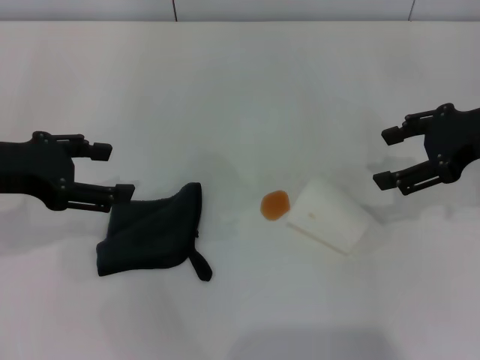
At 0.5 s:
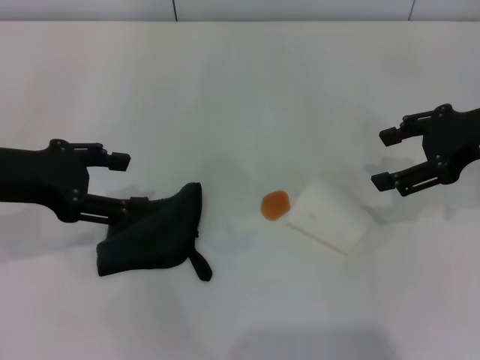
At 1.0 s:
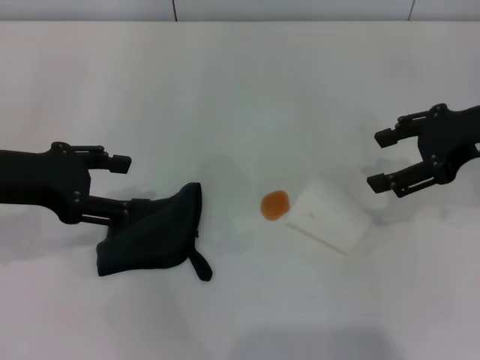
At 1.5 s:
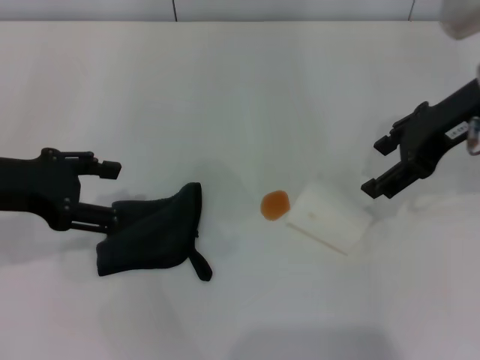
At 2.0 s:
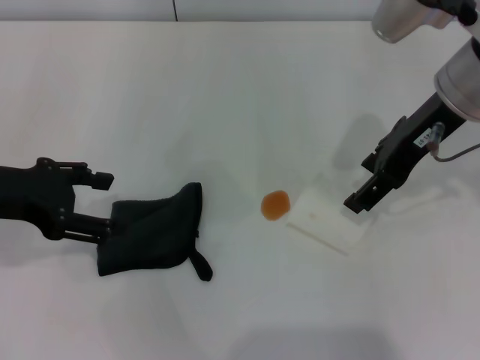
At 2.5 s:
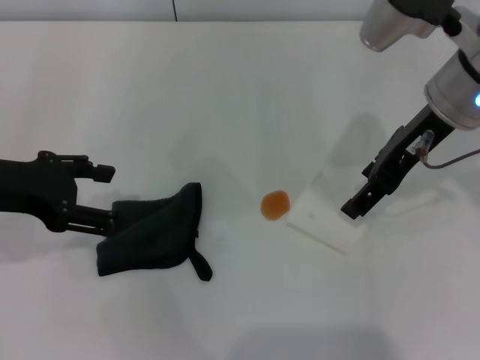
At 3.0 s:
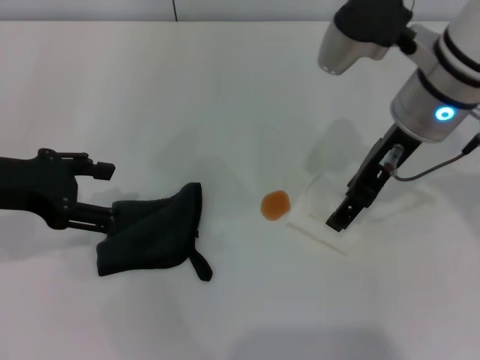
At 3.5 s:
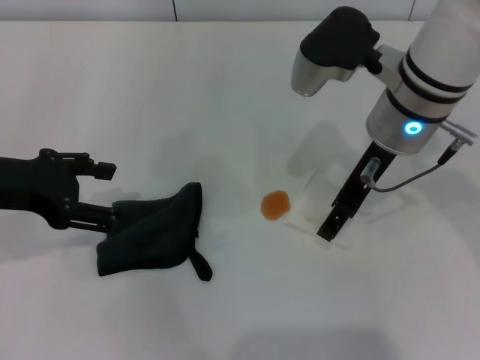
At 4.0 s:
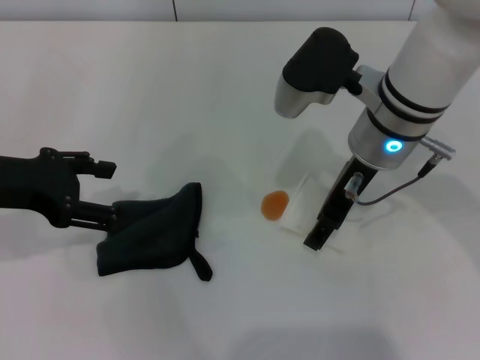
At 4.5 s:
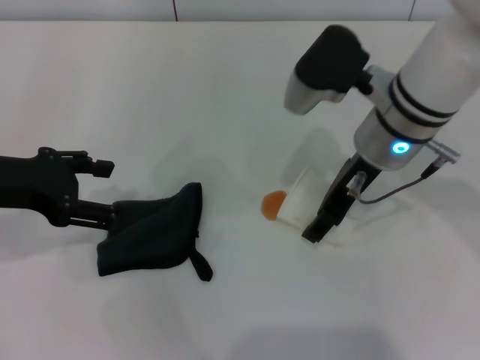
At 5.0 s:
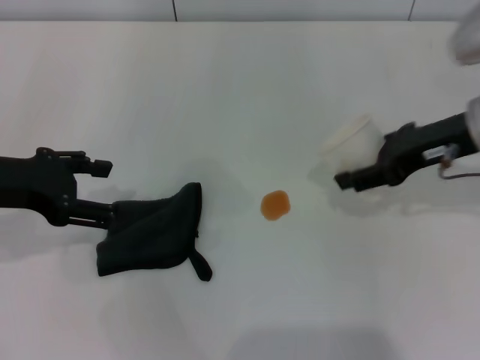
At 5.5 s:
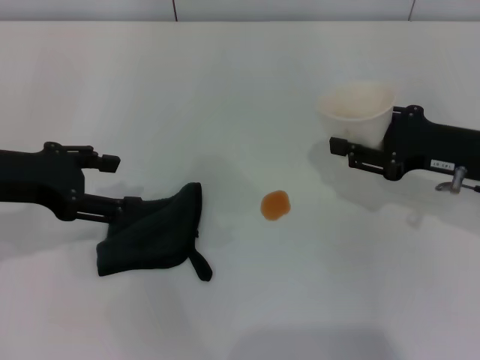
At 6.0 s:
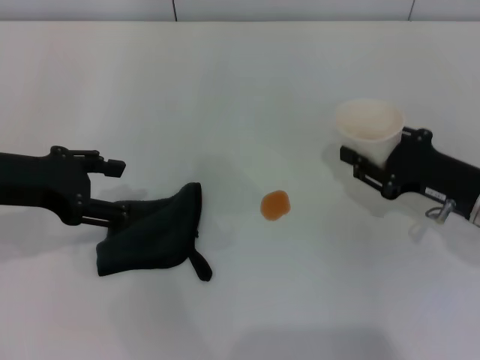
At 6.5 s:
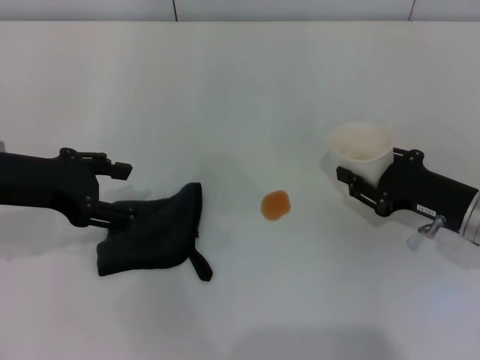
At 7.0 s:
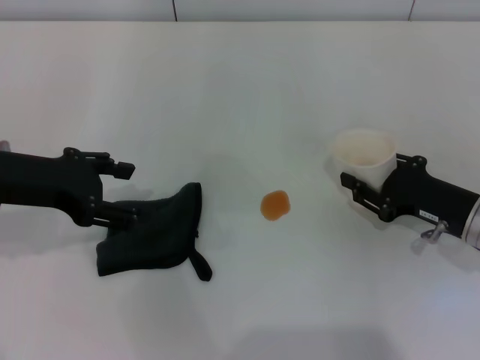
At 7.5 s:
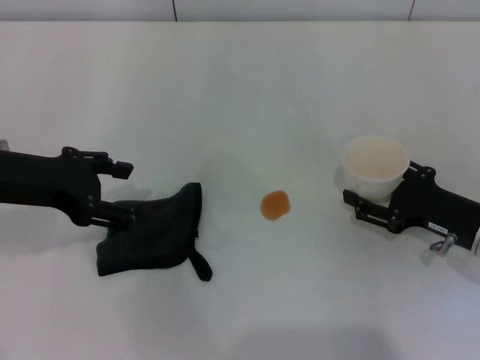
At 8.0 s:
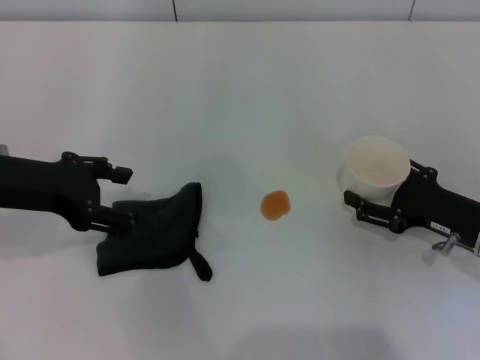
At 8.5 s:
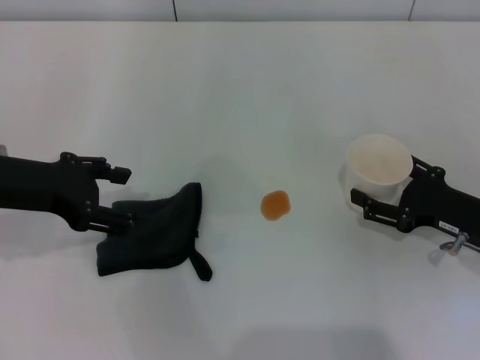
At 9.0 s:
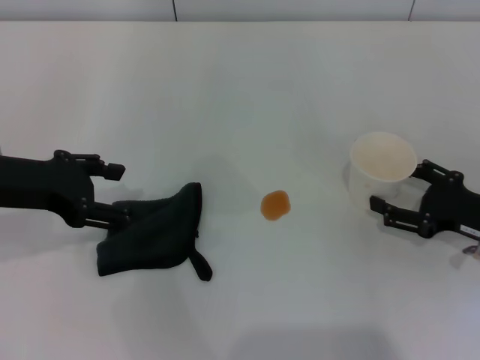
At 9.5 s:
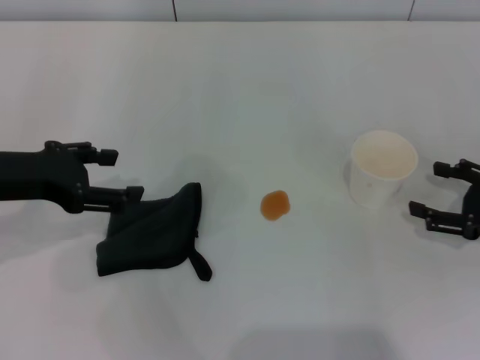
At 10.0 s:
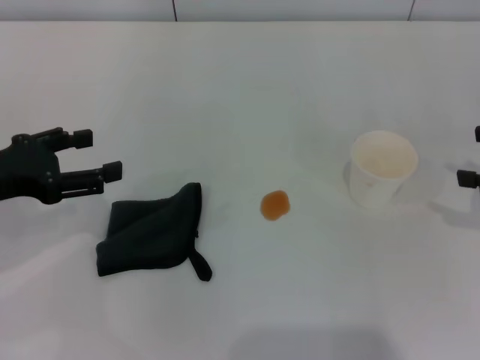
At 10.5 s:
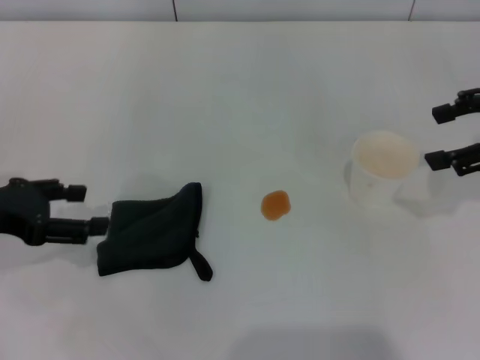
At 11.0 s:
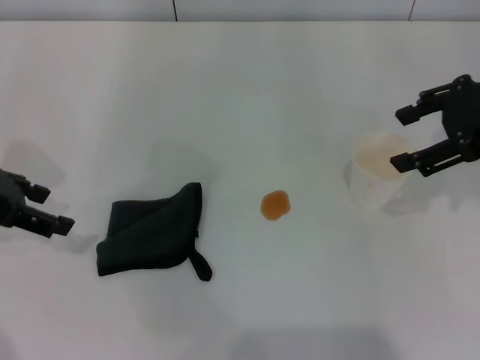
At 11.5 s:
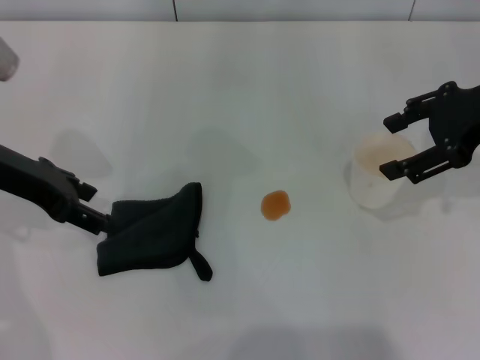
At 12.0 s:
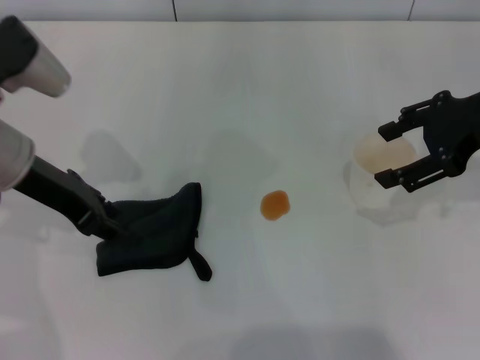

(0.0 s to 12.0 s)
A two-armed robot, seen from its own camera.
Step, 0.0 s - 4.0 s: Grasp the paper cup with the right gripper.
Step, 4.5 s - 9.0 s: Stand the paper cup upright with the right gripper.
0.0 s - 2.0 s: The right gripper goes roughly 10 cm to the left.
2.0 s - 4.0 s: The right gripper travels to the left and downward by some 10 cm.
4.0 s - 6.0 s: The right gripper moves to the right, downward and backward, some 20 cm, and closes its fingers.
6.0 s - 8.0 s: The right gripper opens its fingers.
8.0 s - 10.0 s: The right gripper is displaced upward and to the right by about 15 cm. Meanwhile the left gripper moves roughly 5 cm.
10.0 s - 12.0 s: The left gripper is displaced to the right and forward by about 10 cm, and closes up, while the right gripper travels to the left, upward and forward by roughly 15 cm.

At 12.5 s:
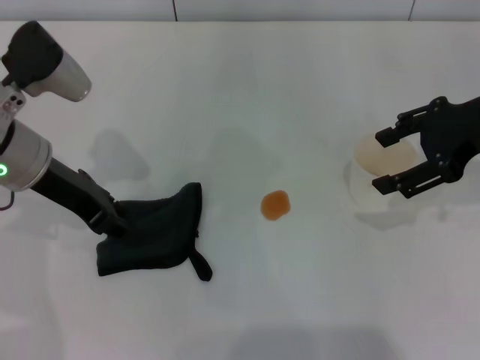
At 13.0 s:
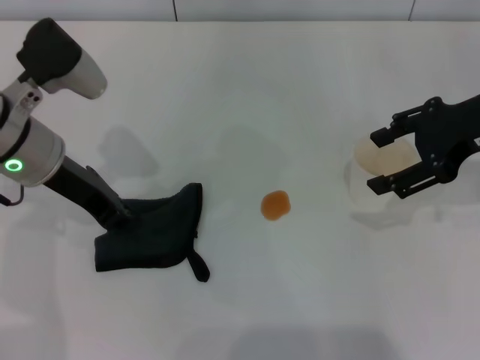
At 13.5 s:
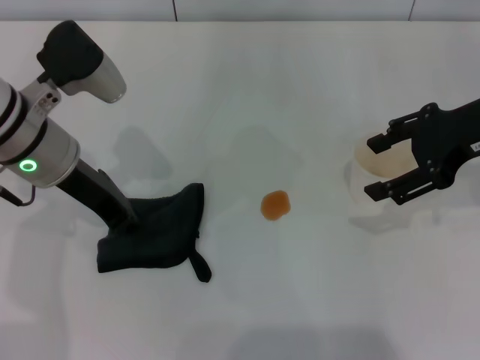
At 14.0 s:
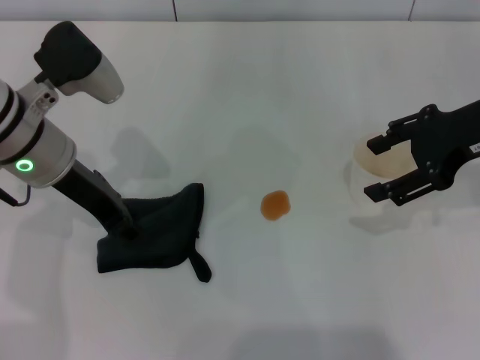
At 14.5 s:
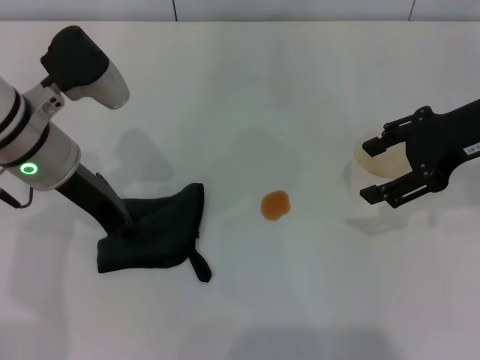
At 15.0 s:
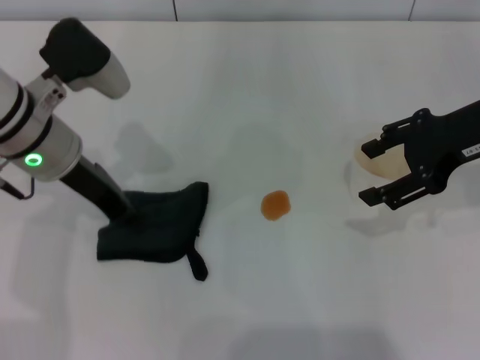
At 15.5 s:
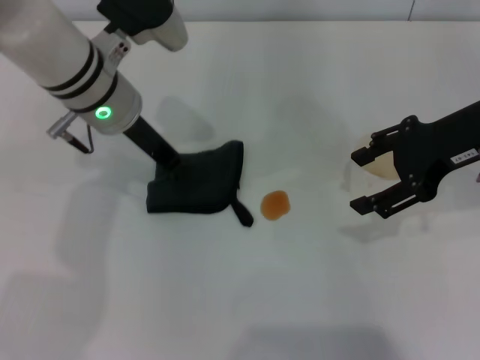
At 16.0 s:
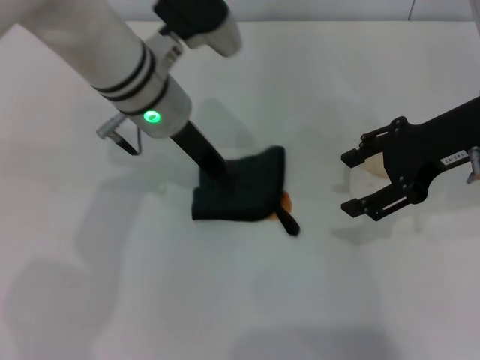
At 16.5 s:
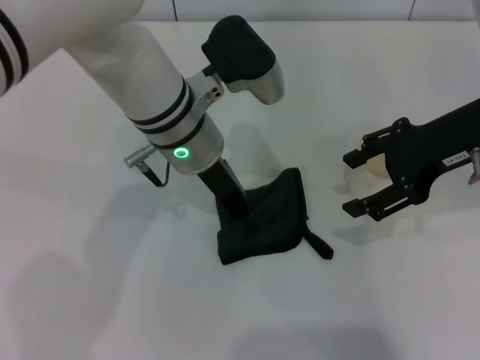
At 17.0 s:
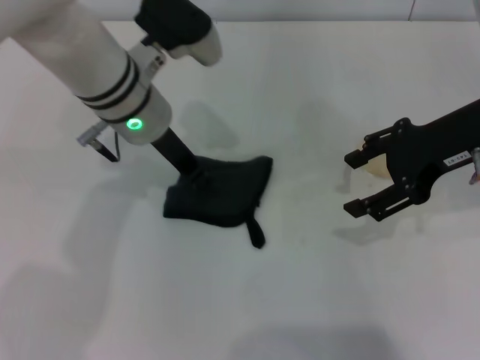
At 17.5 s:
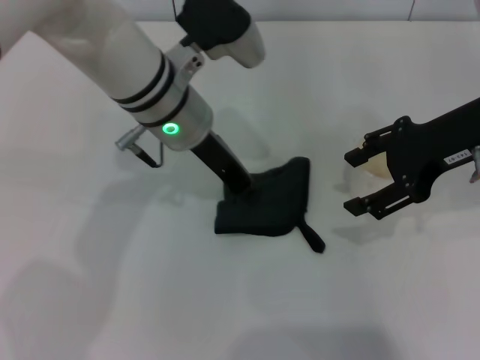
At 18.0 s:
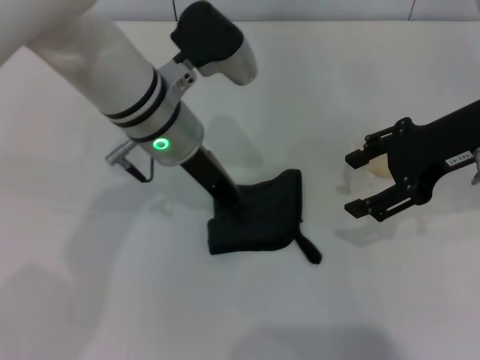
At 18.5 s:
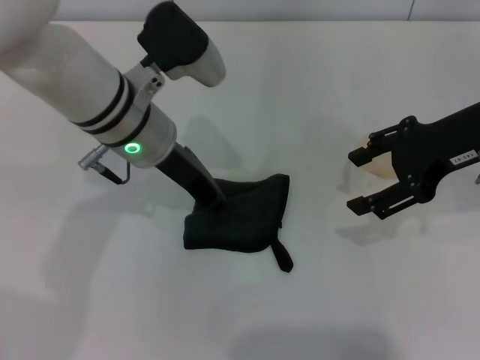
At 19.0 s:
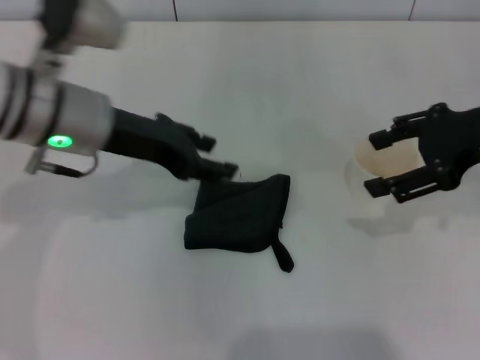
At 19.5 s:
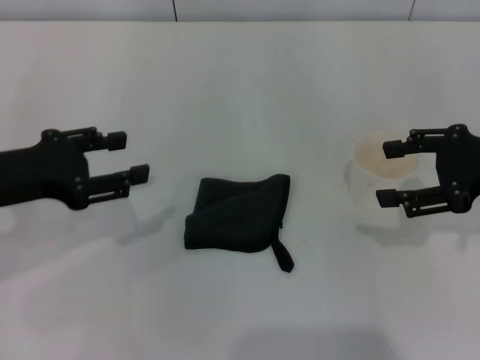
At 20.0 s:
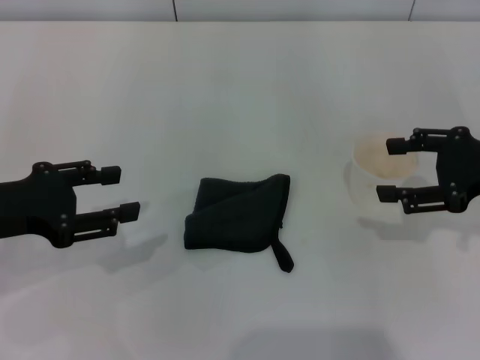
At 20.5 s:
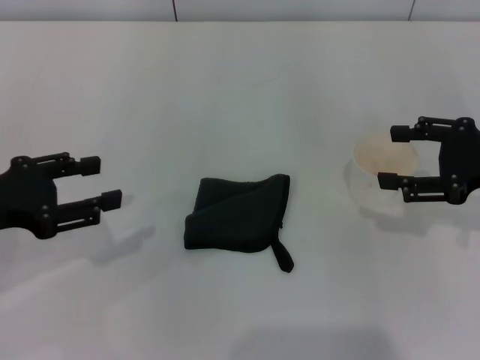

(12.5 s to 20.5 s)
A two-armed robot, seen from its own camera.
Step, 12.5 s - 15.0 s: Grasp the rag with the left gripper.
Step, 15.5 s - 18.0 s: Wipe the stains off the table with the left gripper.
Step, 18.5 s - 19.5 s: Place the rag on the table with the left gripper.
12.5 s - 14.5 s: The left gripper closes and opens again.
14.5 s - 16.5 s: The left gripper travels to the right by approximately 15 cm, and closes.
18.5 s - 20.5 s: The right gripper goes some 10 cm to the right and downward; the left gripper travels to the left and backward by approximately 25 cm, and opens.

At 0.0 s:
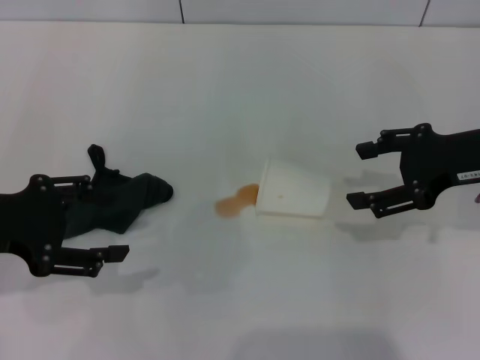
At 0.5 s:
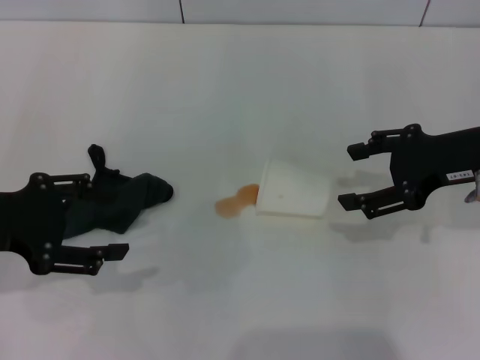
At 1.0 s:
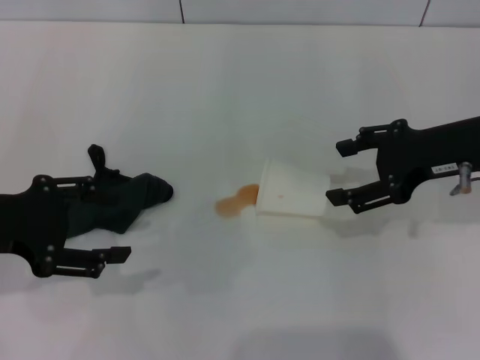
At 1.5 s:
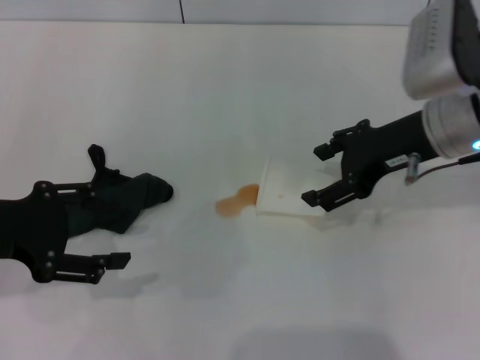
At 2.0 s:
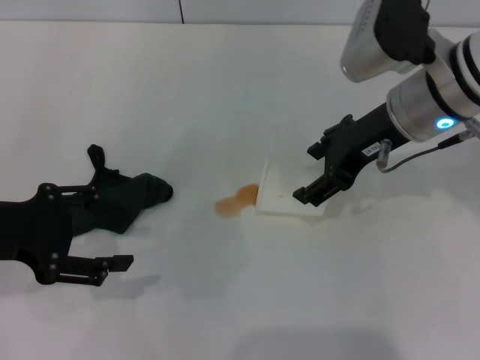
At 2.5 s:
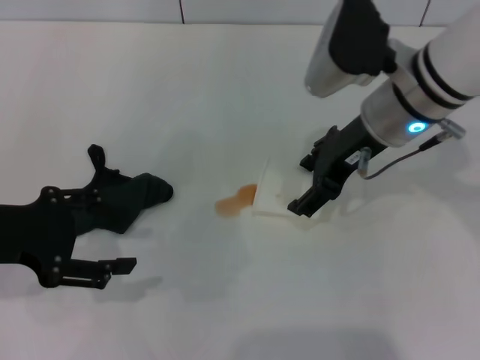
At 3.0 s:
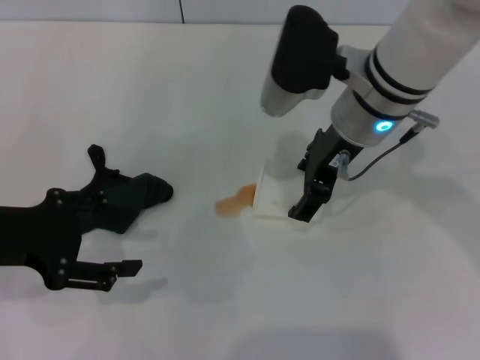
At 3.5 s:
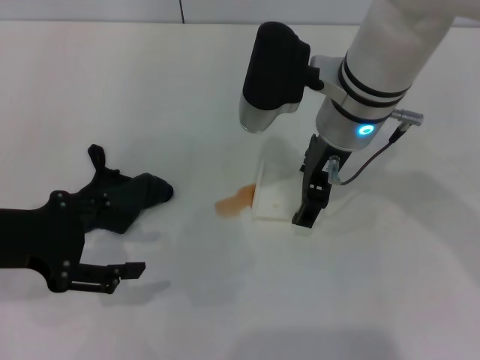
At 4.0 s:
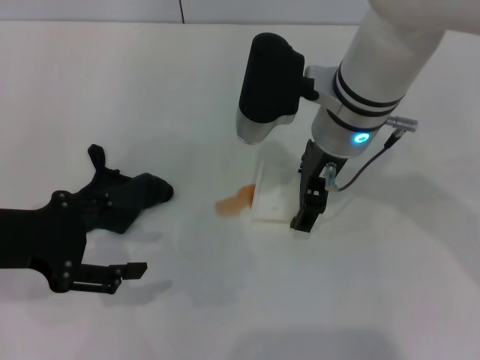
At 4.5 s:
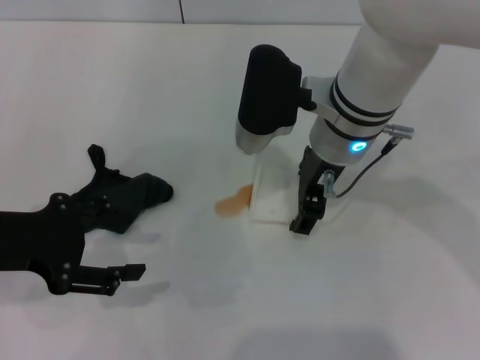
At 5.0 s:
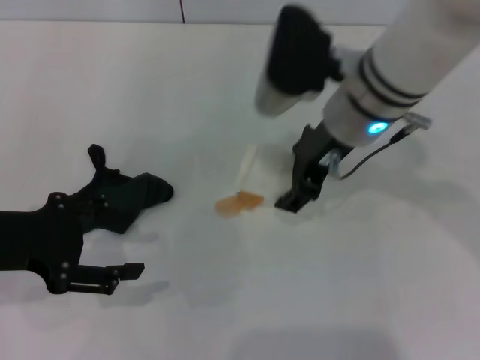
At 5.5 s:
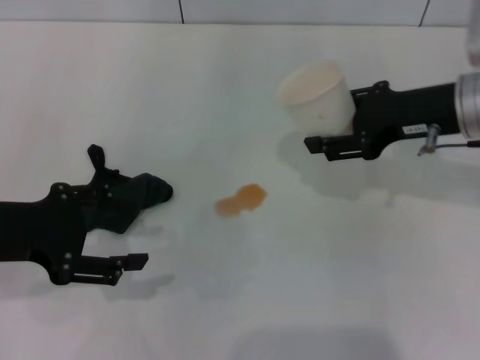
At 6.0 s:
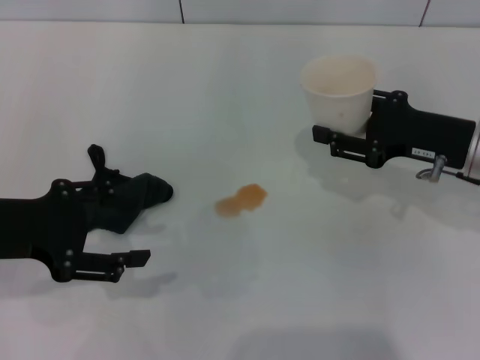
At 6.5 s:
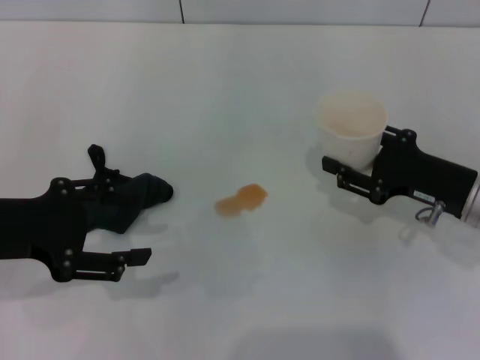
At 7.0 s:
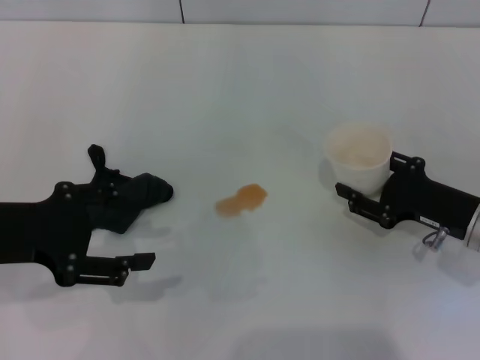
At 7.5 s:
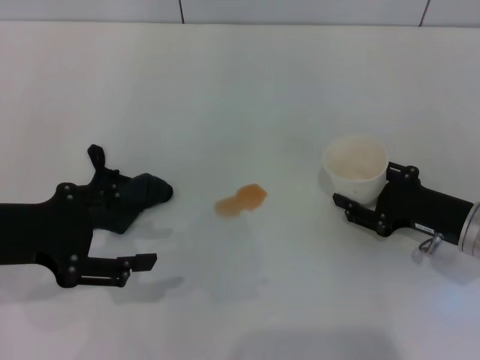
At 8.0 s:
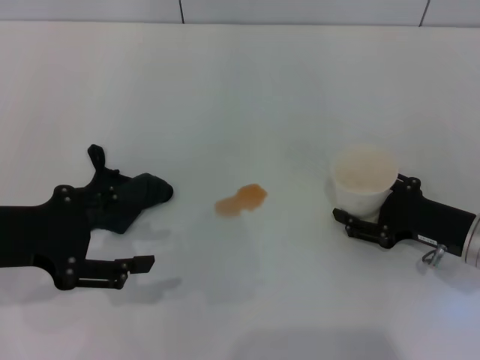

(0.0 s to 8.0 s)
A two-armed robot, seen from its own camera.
Step, 0.0 s - 4.5 s: Grasp the paper cup with the right gripper.
0.0 s - 2.0 s: The right gripper goes approximately 10 cm to the left.
2.0 s - 4.0 s: The right gripper goes roughly 10 cm to the left.
4.0 s - 6.0 s: The right gripper goes roughly 20 cm to the right, and closes.
6.0 s - 8.0 s: The right gripper is displaced downward and backward by approximately 10 cm.
